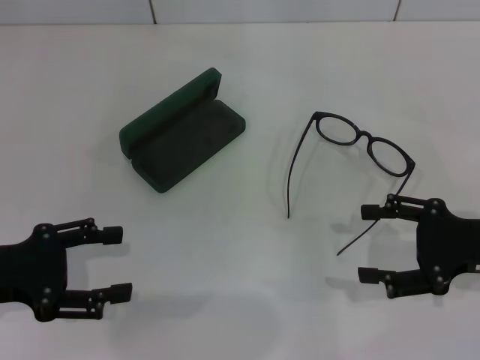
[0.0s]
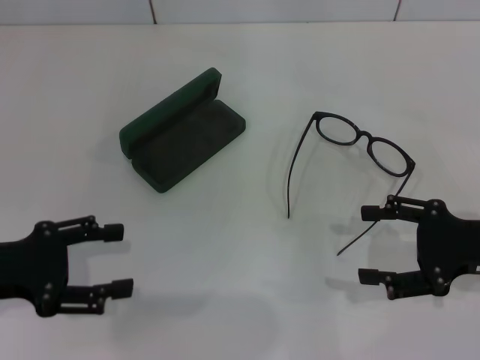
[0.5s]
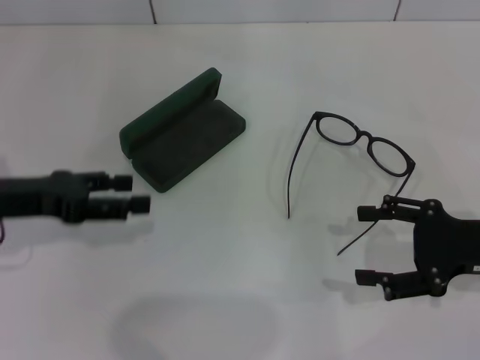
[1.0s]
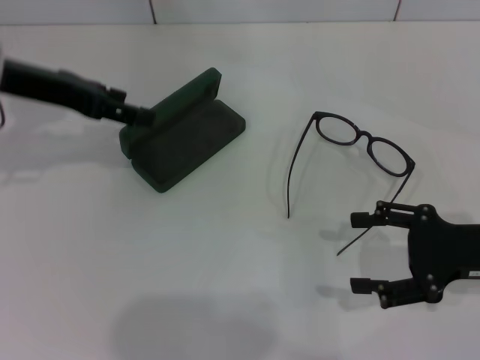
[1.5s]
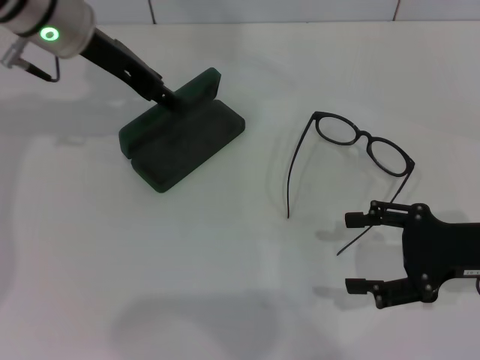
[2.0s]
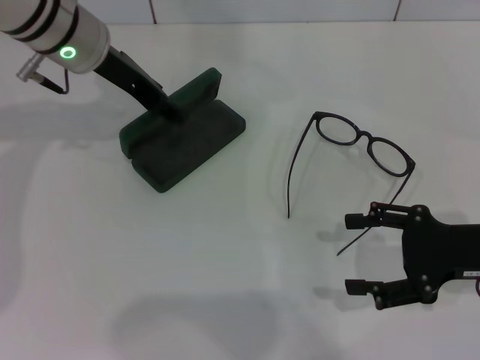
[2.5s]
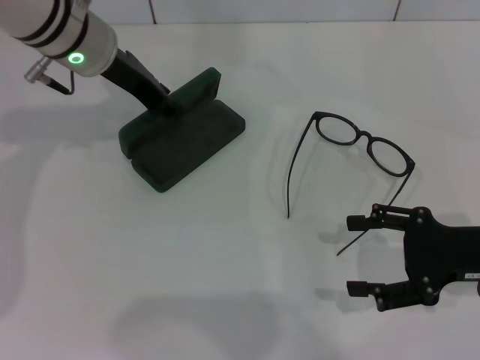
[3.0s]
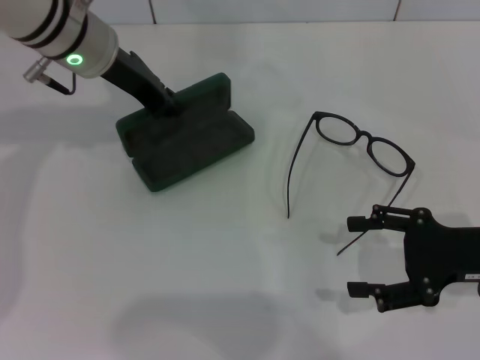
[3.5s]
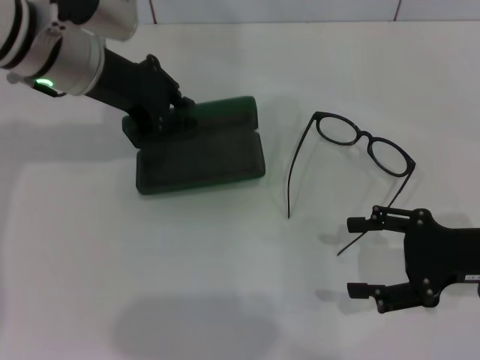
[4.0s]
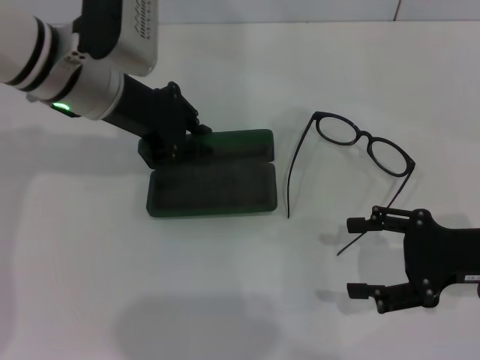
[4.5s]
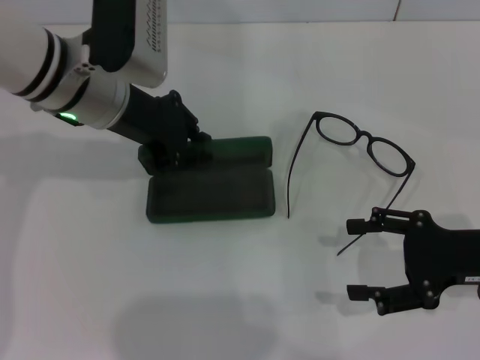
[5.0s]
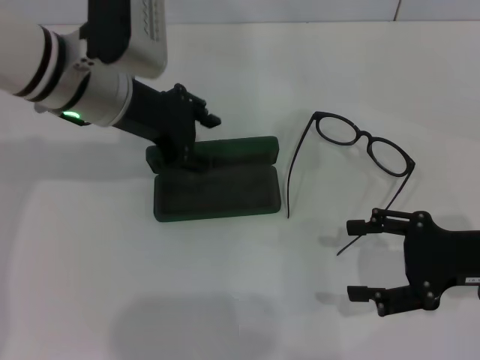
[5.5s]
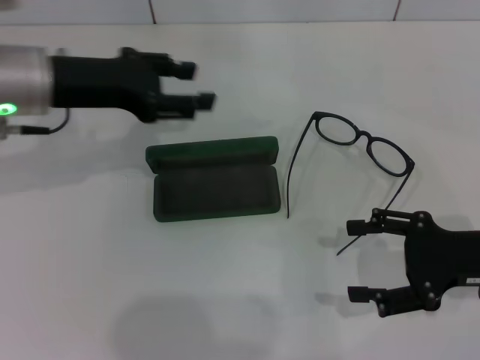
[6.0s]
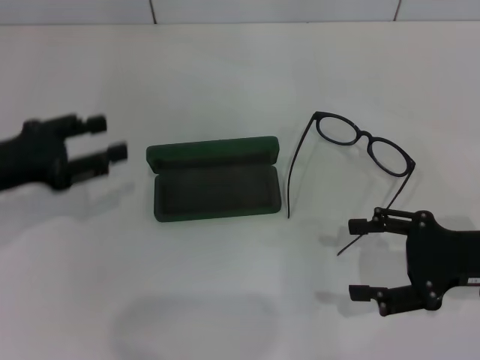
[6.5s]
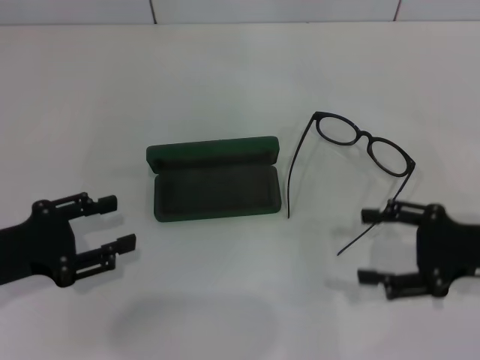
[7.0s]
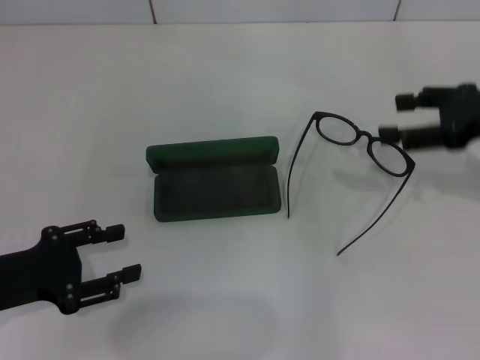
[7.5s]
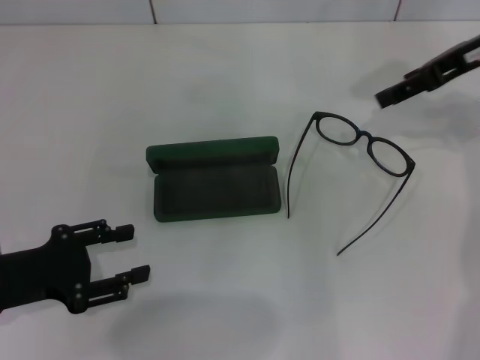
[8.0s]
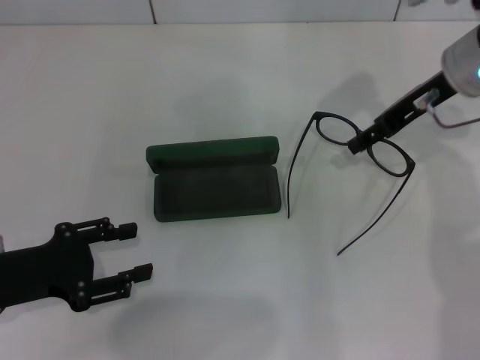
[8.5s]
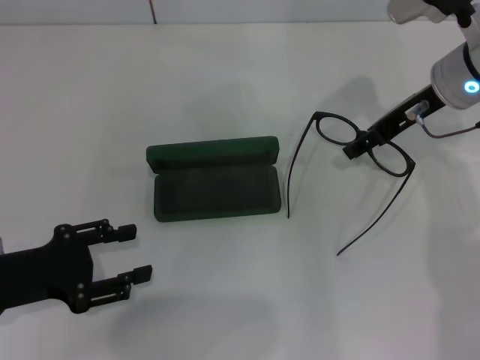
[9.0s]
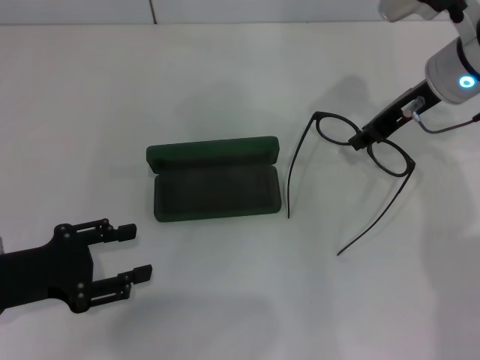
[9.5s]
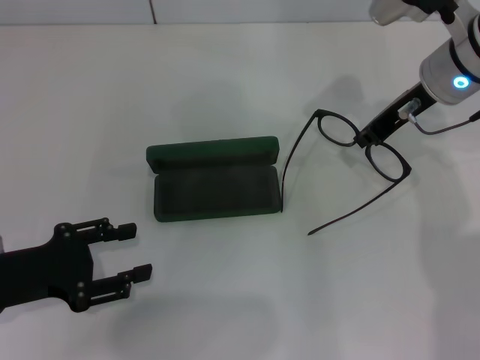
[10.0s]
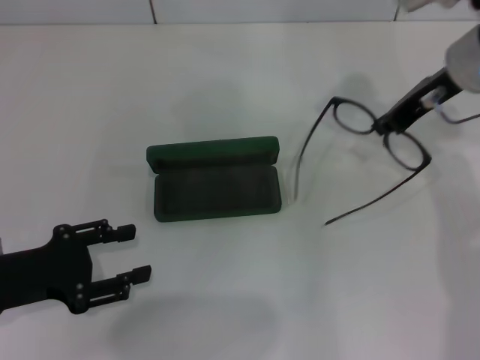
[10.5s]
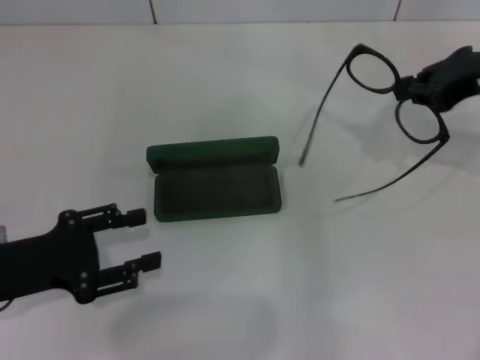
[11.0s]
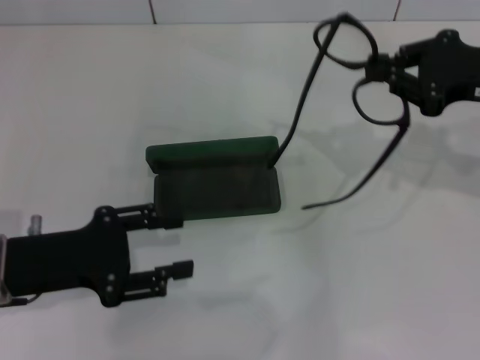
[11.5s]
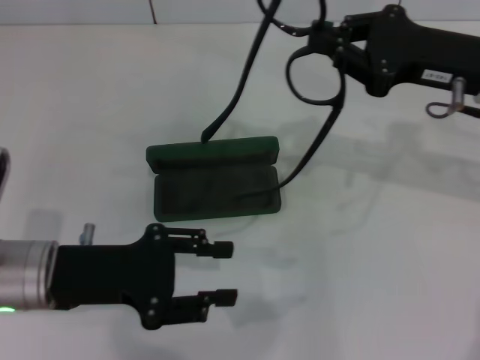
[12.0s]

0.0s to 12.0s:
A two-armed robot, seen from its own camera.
Step, 0.0s to 3.0s: Grab the glasses case with your left hand.
Step, 3.5s to 5.0s: Place the glasses case in the center of the table with your left hand.
Step, 5.5s to 9.5s: Grab the eyeglass frame with your right hand.
0.0s to 2.0s: The left gripper heads forward, to the right and upward, covering about 25 cm.
2.0s to 4.0s: The left gripper closes its fingers.
4.0s to 6.0s: The left gripper shifts by about 5 cm, and opens its fingers.
6.0s to 8.0s: The left gripper is displaced backward, downward and to the left by some 20 cm. The right gripper heads forward and upward, covering about 20 cm.
8.0s to 10.0s: The right gripper is displaced to the left and downward by approximately 10 cm, and closes its fingers.
10.0s to 12.0s: The left gripper is displaced to the right by some 5 cm; the right gripper goes about 5 cm backward.

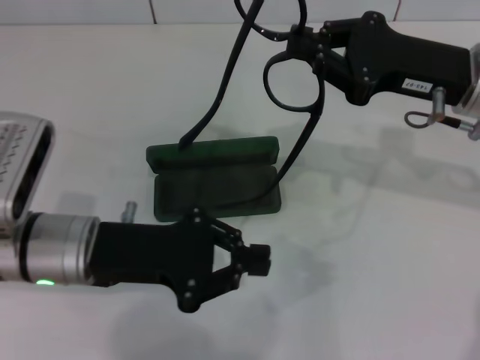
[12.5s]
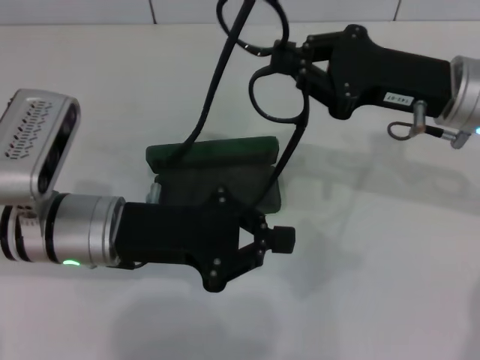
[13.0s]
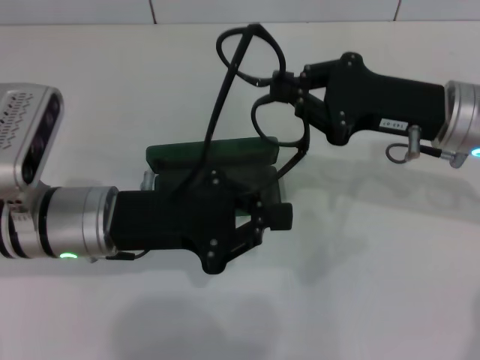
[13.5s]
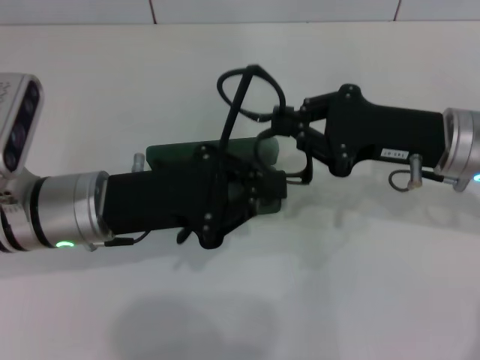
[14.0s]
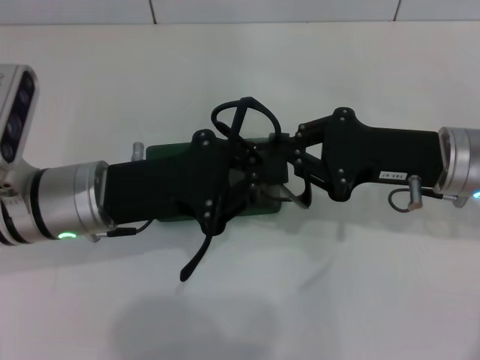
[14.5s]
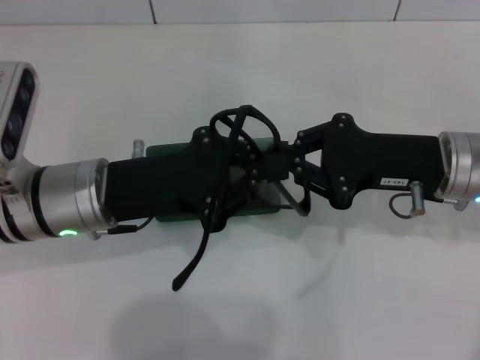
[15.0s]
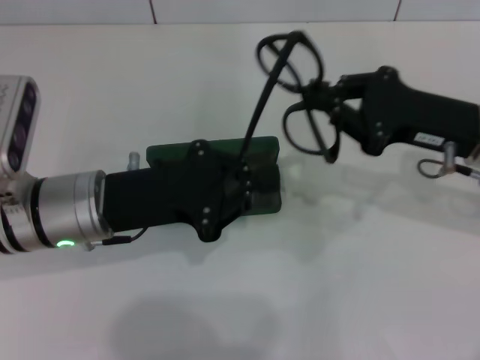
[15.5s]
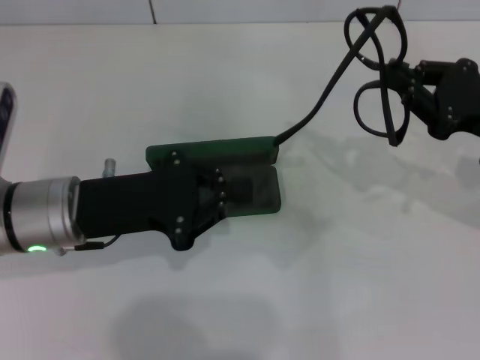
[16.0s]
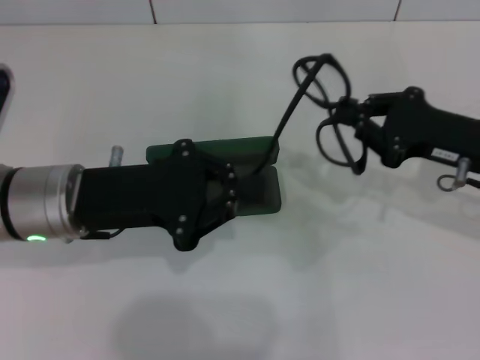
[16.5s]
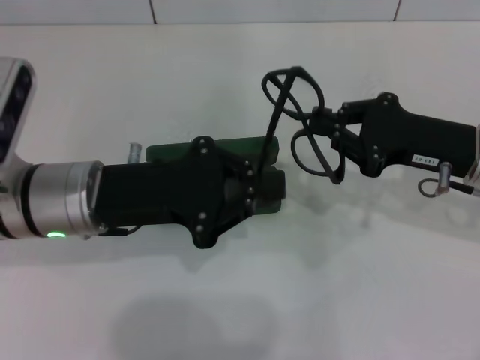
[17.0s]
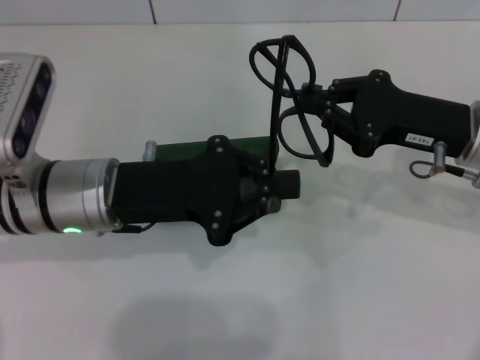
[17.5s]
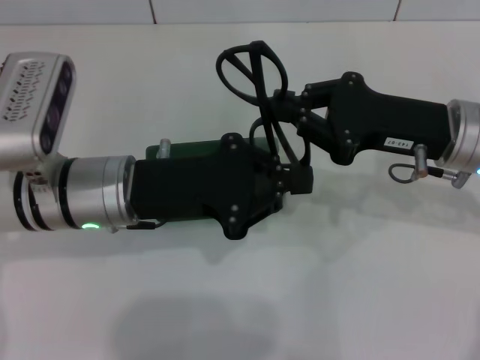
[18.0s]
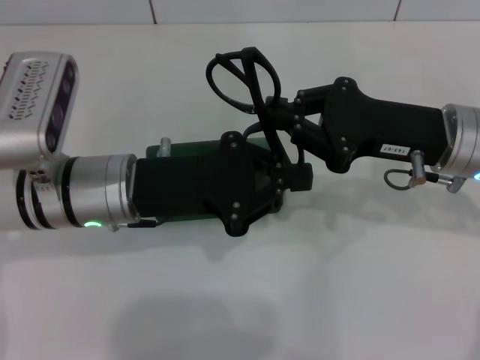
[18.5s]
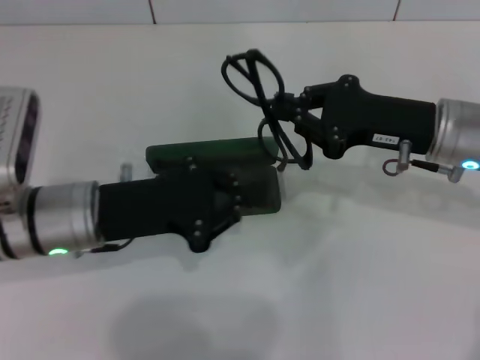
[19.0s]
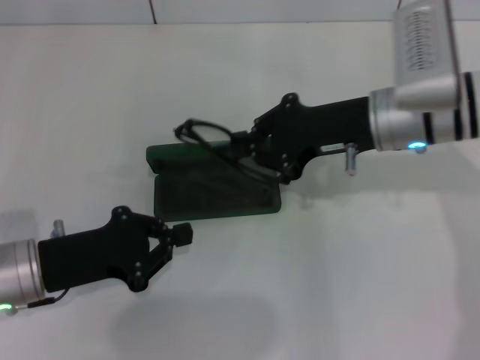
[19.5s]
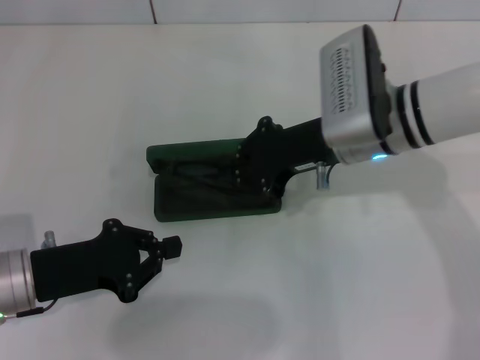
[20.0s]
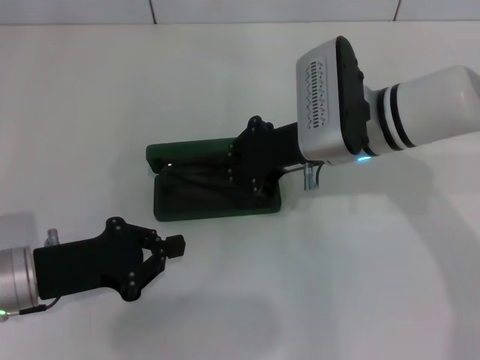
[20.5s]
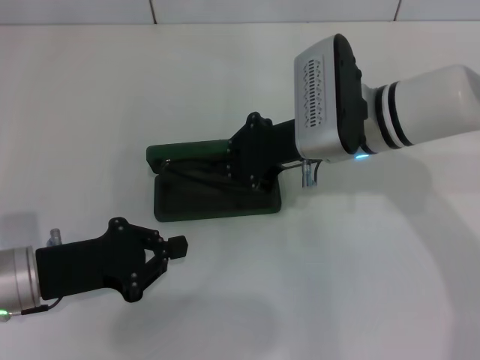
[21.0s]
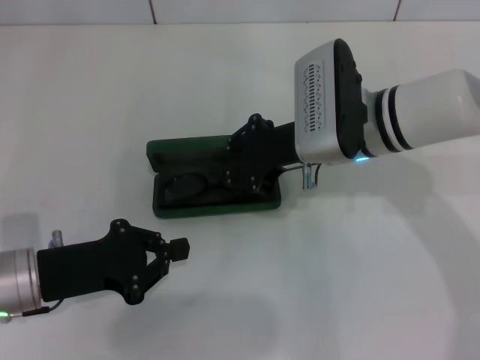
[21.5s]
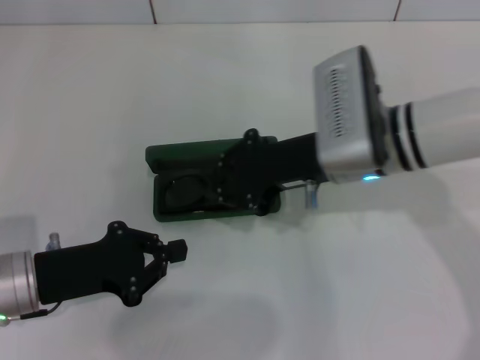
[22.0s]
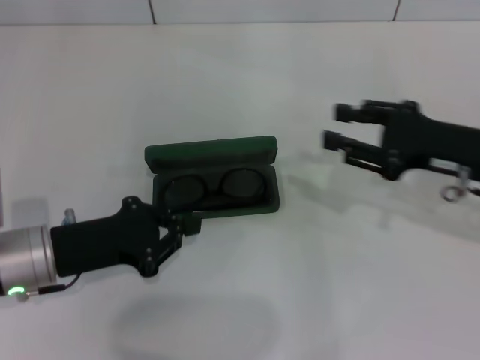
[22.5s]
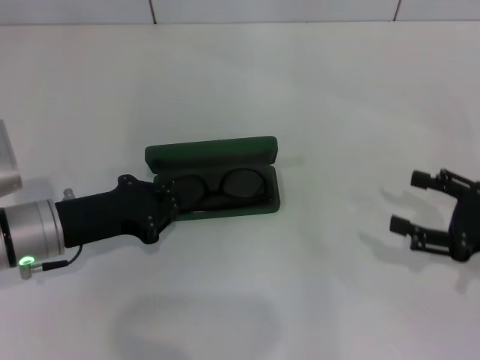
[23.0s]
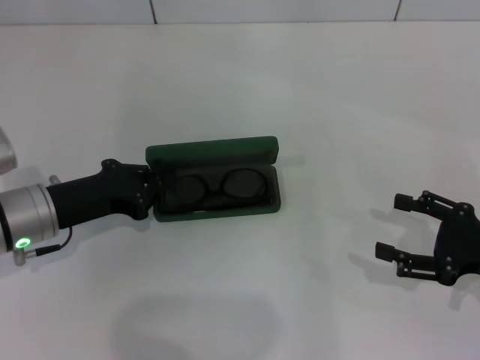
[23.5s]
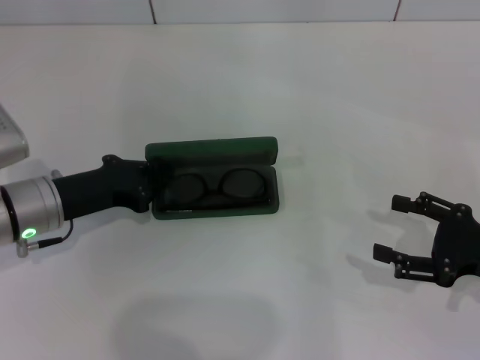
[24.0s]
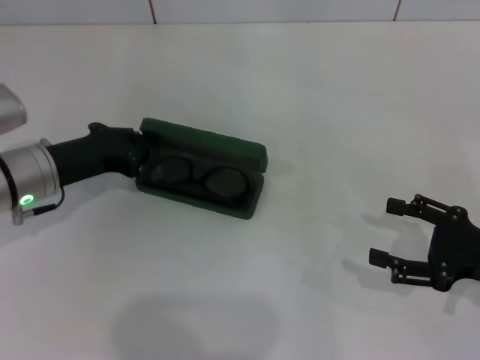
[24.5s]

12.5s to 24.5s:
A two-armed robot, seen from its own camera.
Step, 12.5s to 18.0s: Fold the frame with your left hand.
Step, 18.5s to 22.0s: Put the glasses into the case with your right hand.
12.5s to 14.5s: The right gripper moves about 5 cm. Meanwhile the left gripper closes.
14.5s to 16.5s: The right gripper shifts some 5 cm to the right.
16.5s to 18.5s: The right gripper goes about 5 cm to the left.
18.5s to 20.5s: The right gripper moves to the left, roughly 10 cm. Meanwhile the left gripper goes approximately 15 cm to the left, downward and backward.
20.5s to 22.5s: The right gripper goes approximately 15 cm to the right.
22.5s to 24.5s: The left gripper is displaced forward by some 10 cm; the right gripper moves backward, downward and to the right, about 10 cm, and opens up.

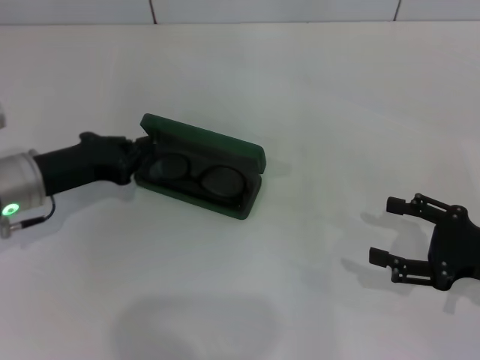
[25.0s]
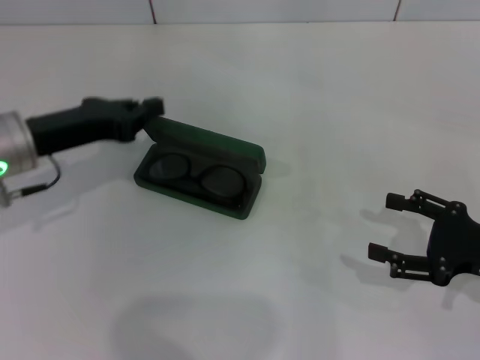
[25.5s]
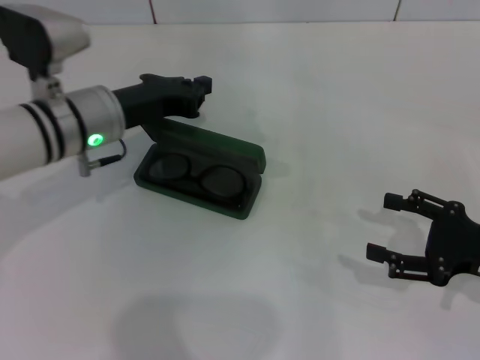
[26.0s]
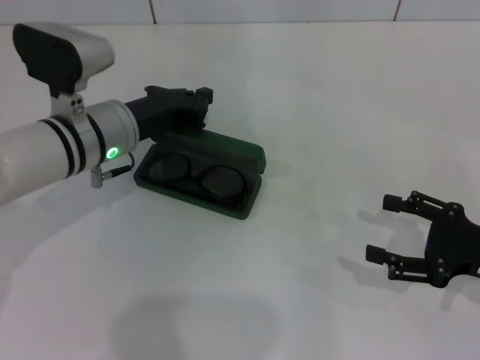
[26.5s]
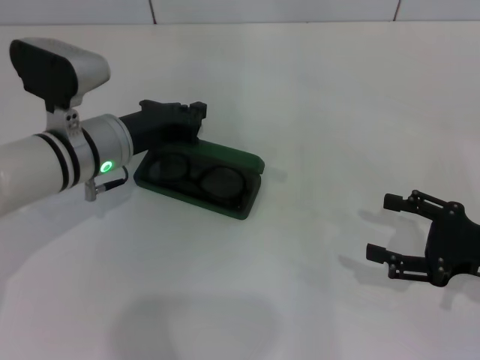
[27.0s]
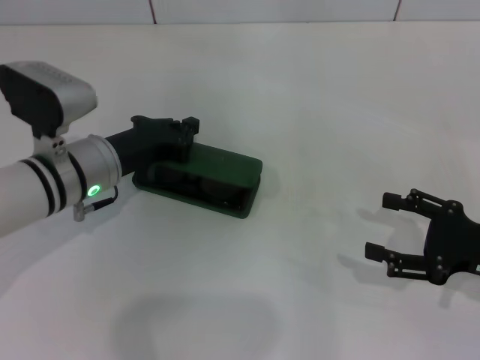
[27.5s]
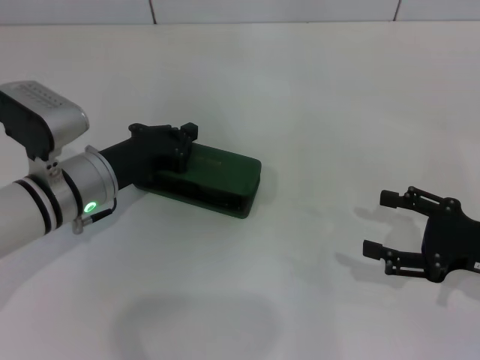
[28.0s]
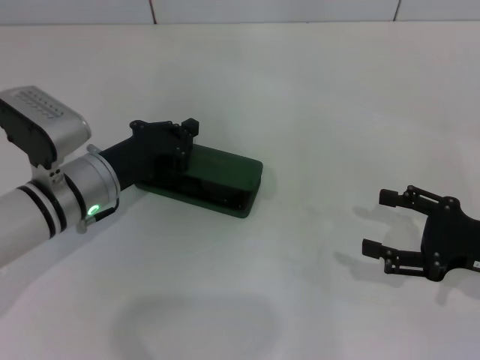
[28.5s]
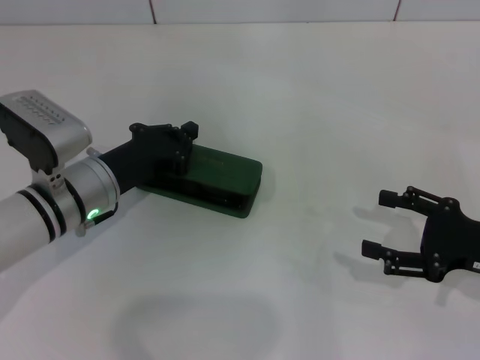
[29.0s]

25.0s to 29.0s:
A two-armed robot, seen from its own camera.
25.0s to 27.0s: The left gripper moves to the right, some 10 cm.
27.0s to 29.0s: The left gripper moves roughly 5 cm.
